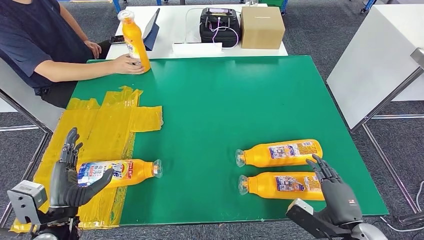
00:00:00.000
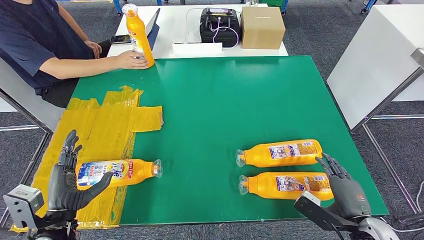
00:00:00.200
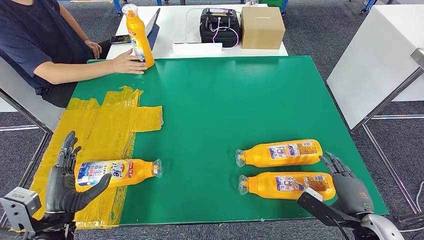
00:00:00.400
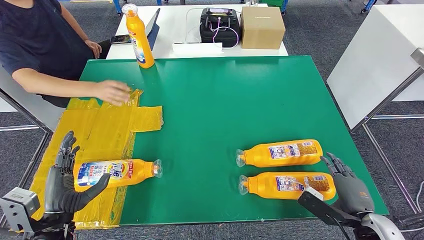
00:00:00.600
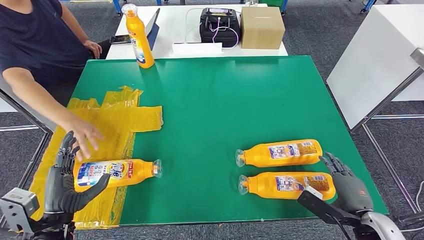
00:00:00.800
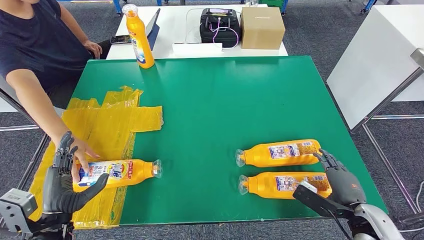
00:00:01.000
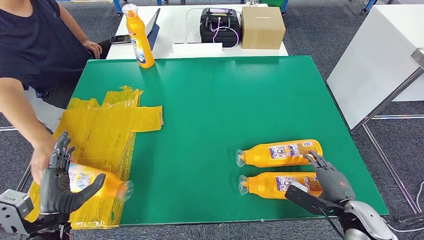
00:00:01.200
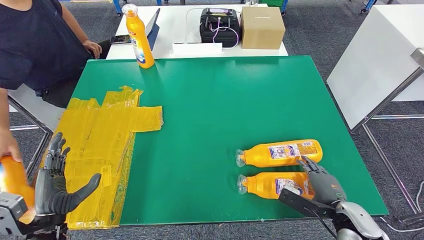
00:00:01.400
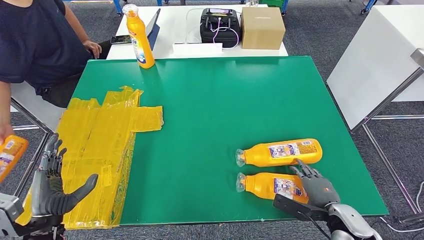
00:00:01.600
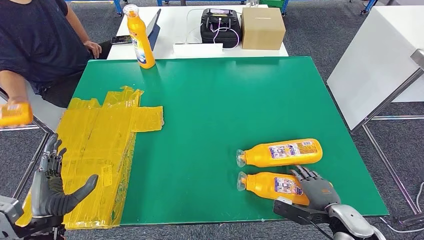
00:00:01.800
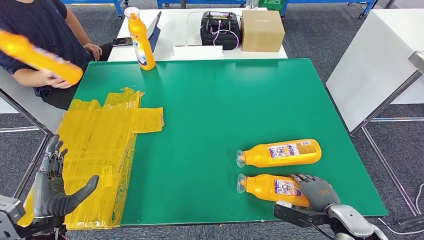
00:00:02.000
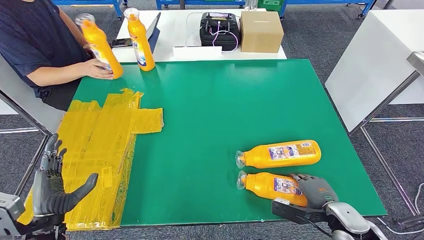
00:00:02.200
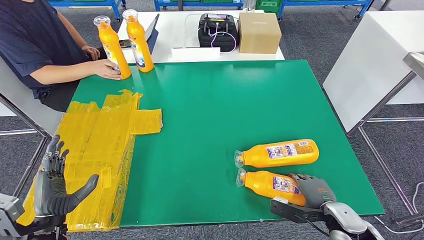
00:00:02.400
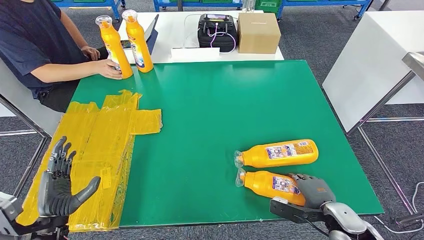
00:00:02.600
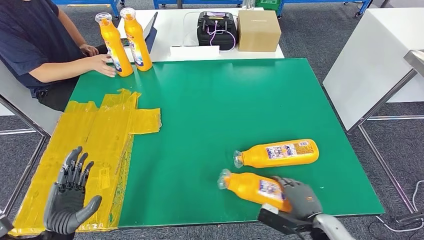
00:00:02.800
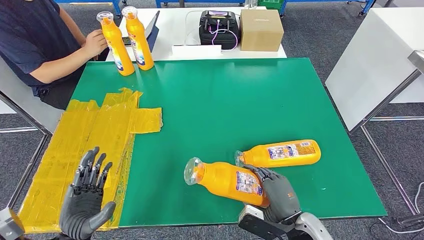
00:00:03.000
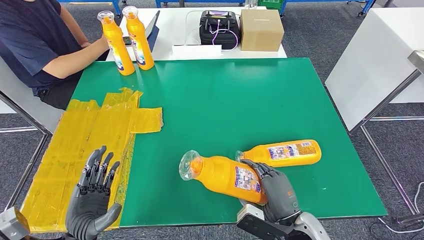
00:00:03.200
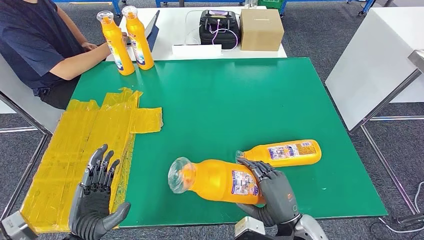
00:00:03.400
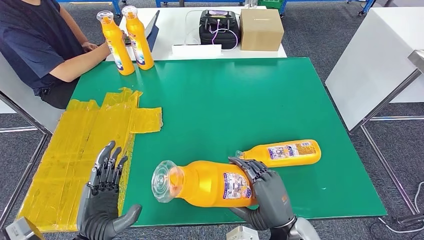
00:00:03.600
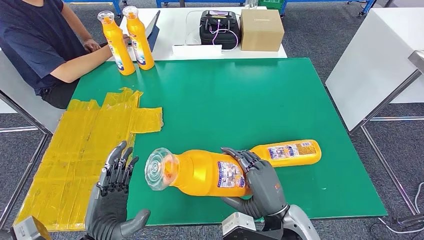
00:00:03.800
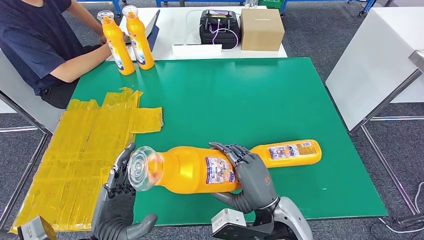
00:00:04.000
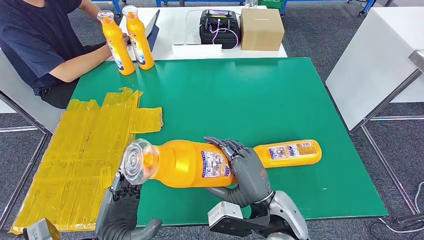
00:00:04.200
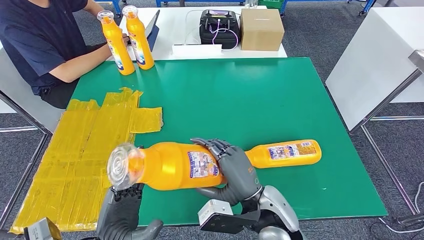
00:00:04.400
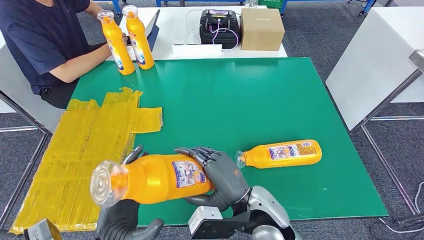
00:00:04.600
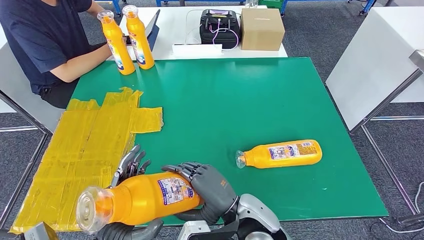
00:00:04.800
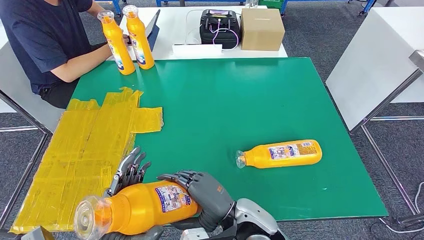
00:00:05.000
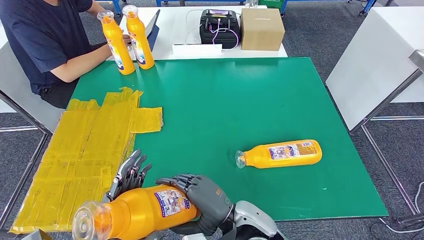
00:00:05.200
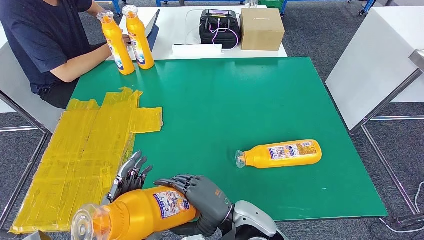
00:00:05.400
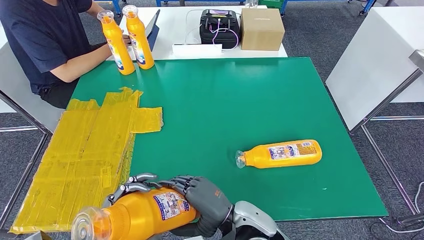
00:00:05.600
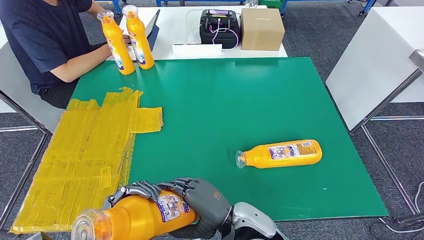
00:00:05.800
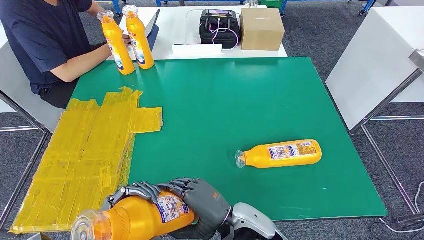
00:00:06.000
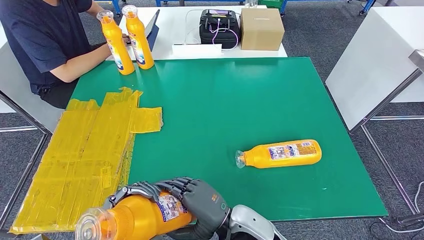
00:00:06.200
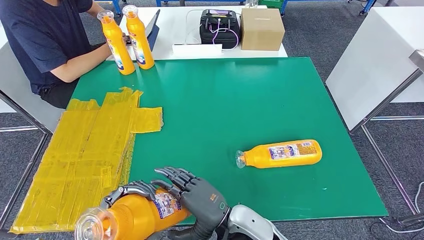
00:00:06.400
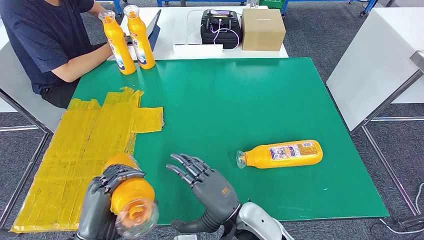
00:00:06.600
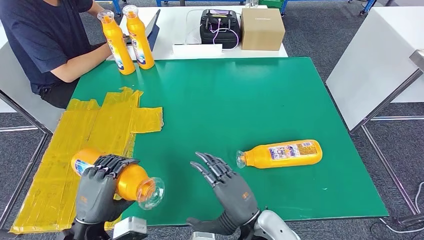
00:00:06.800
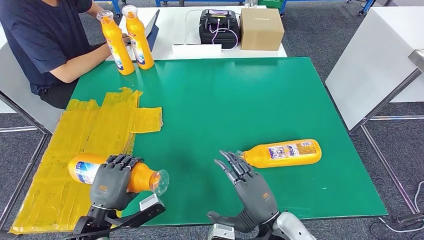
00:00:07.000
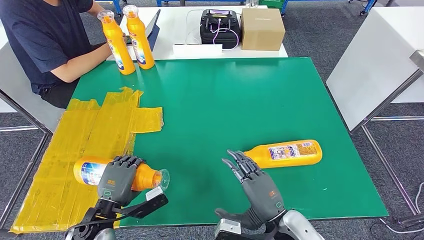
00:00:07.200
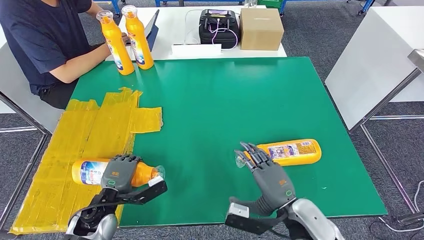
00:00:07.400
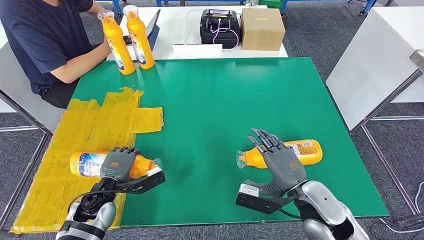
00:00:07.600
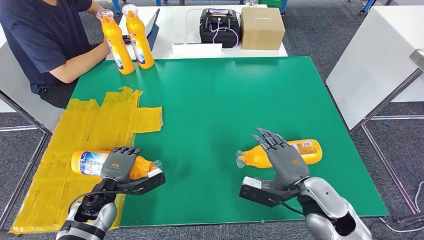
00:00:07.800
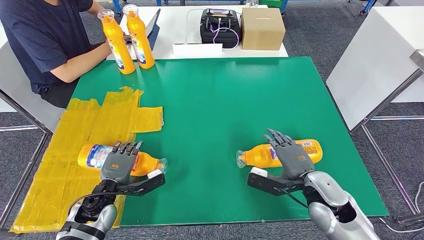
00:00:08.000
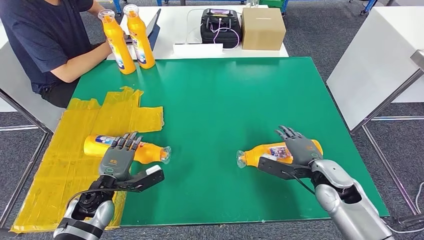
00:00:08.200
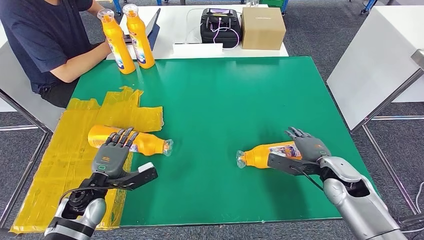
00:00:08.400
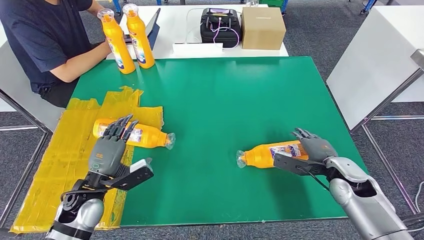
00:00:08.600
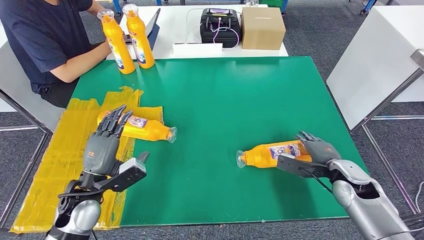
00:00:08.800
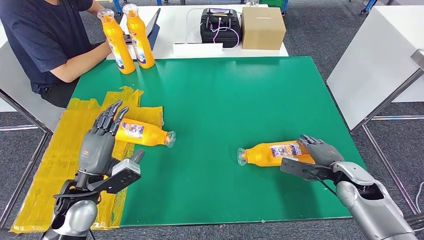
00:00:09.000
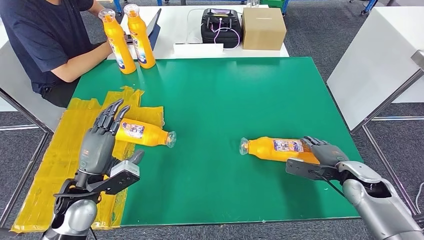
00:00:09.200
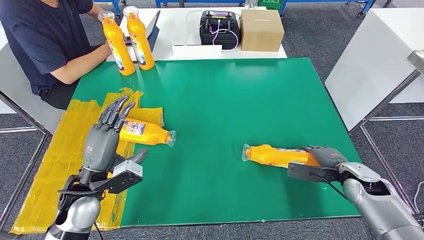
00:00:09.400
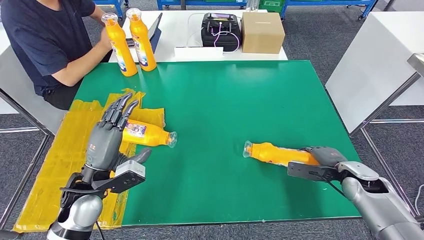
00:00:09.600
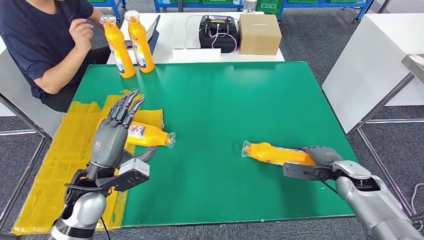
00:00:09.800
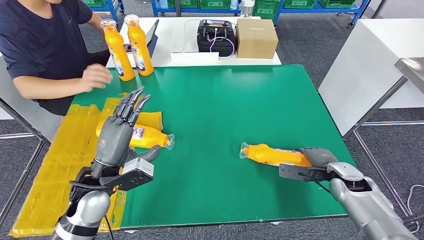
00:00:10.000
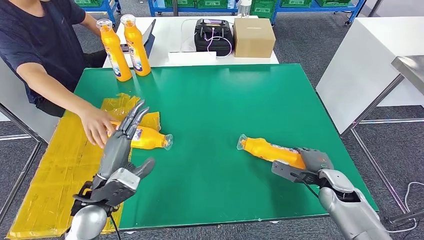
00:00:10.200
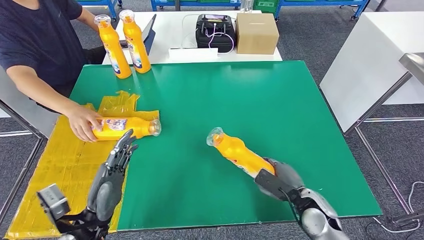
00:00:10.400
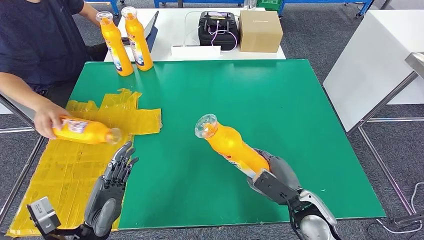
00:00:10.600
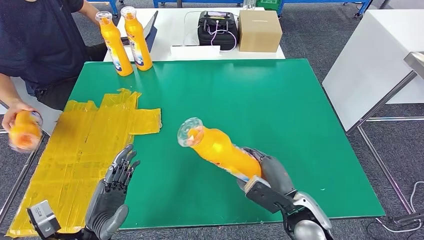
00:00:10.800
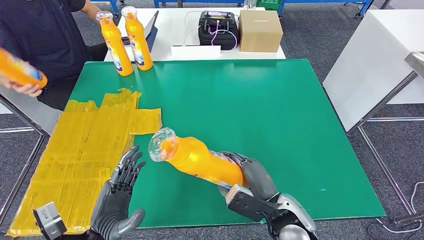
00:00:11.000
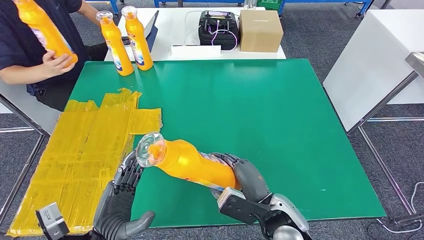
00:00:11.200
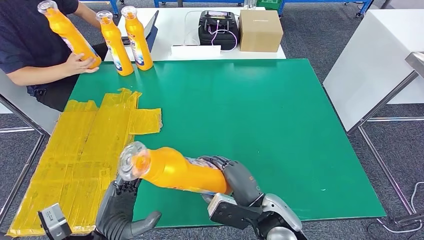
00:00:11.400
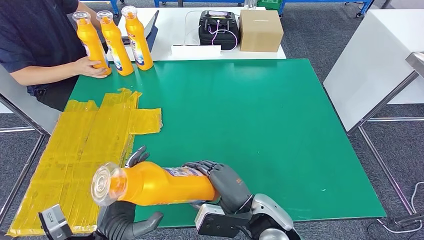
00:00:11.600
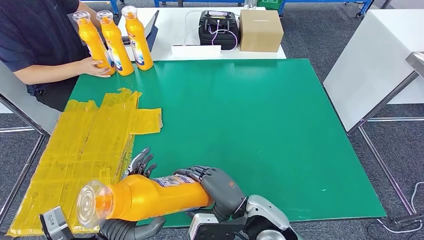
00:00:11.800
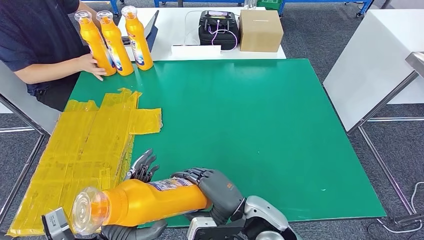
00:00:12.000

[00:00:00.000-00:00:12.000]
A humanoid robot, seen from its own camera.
Step, 00:00:02.600 to 00:00:05.400: Pick up the fast-moving consumer goods bottle from the table.
Step, 00:00:05.600 to 00:00:08.800: Flip the fast-moving consumer goods bottle to the front side.
Step, 00:00:09.600 to 00:00:11.000: Pick up the fast-moving consumer goods bottle from the table.
00:00:00.000 to 00:00:01.600: The right hand moves forward and downward, about 10 cm.
00:00:04.400 to 00:00:06.000: The right hand moves some 5 cm.
00:00:06.000 to 00:00:07.600: The right hand goes some 15 cm to the right, while the left hand shifts some 20 cm forward, downward and to the left.

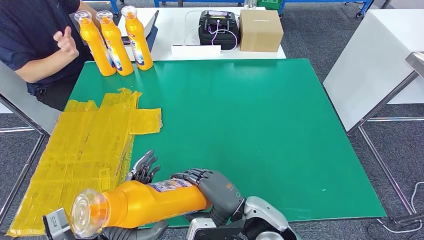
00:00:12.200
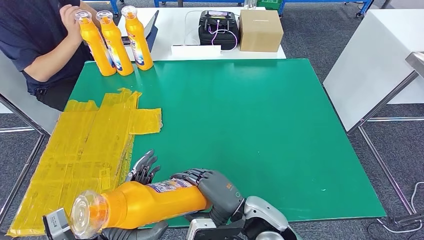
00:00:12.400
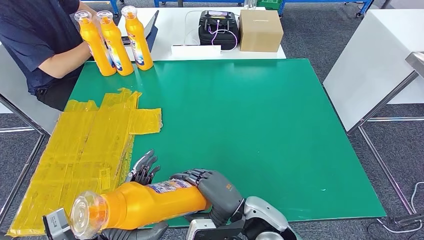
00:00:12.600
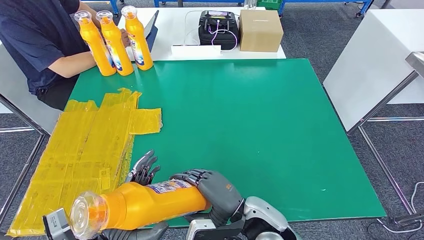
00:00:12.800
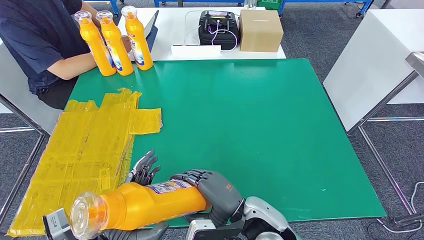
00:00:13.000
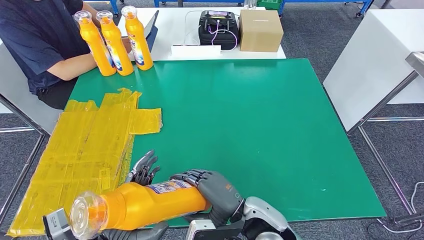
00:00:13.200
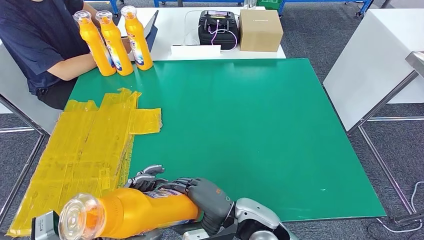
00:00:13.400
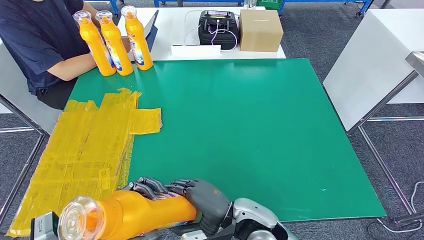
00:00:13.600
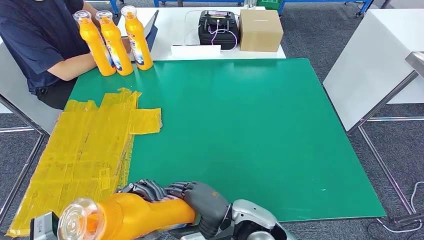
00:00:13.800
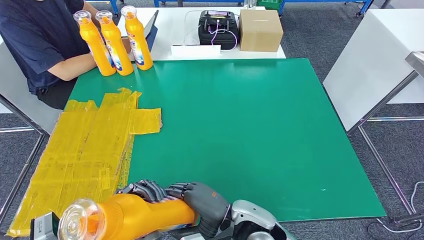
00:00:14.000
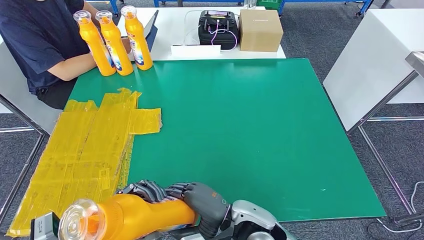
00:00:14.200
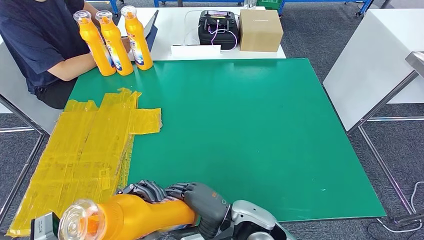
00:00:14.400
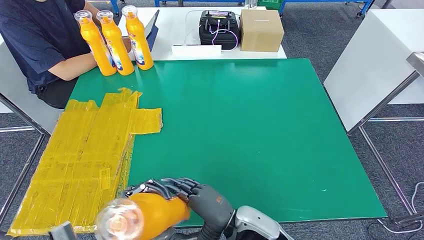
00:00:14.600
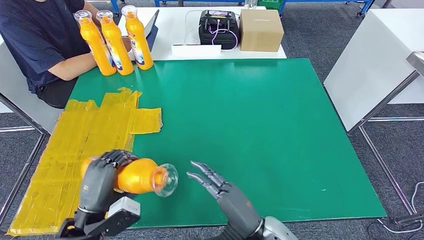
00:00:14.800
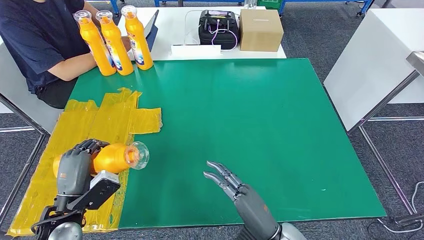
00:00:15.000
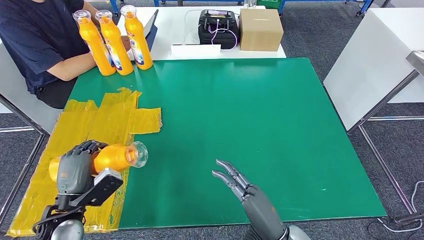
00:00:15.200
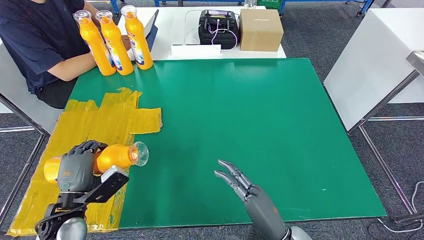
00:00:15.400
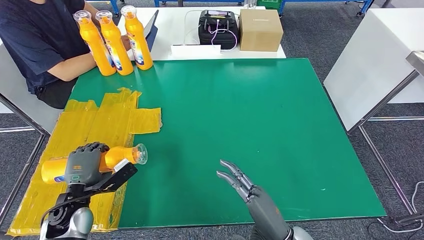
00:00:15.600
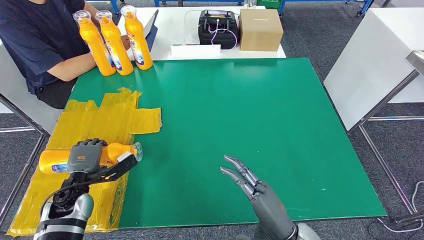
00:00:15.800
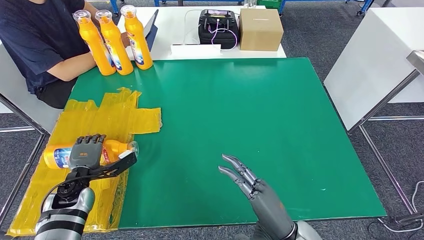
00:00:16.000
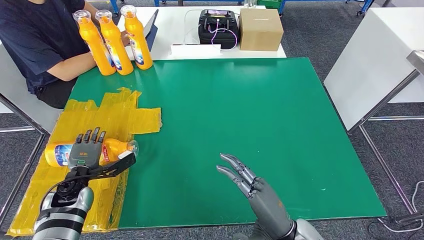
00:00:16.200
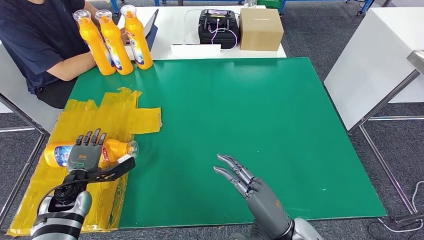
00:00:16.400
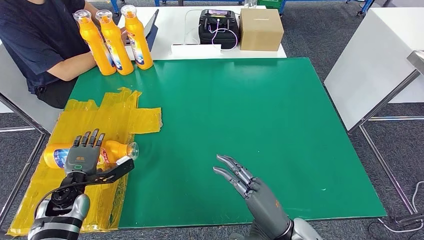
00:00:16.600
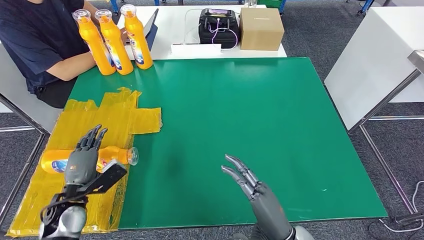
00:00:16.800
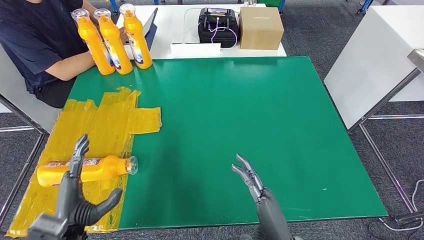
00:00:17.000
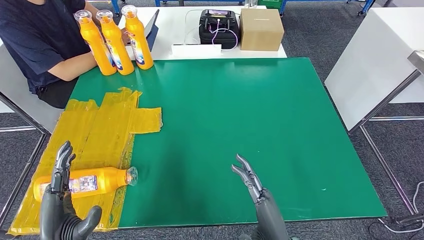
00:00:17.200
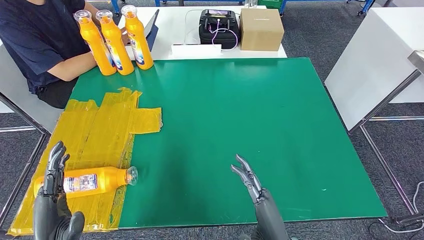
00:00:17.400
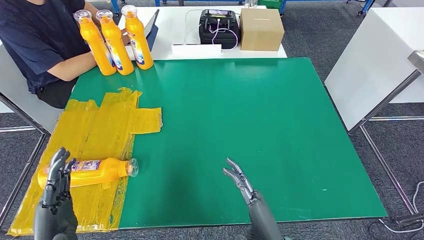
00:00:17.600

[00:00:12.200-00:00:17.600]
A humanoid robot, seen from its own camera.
Step, 00:00:12.200 to 00:00:17.600: Flip the fast-moving consumer goods bottle to the front side.
00:00:12.200 to 00:00:13.600: The hands stay close to where they were, moving slightly.
00:00:13.600 to 00:00:15.000: The left hand travels to the left and forward by some 15 cm. The right hand is displaced to the right and backward by approximately 10 cm.
00:00:15.000 to 00:00:16.200: The left hand heads forward, downward and to the left, covering roughly 15 cm.
00:00:16.200 to 00:00:17.600: The right hand changes place by approximately 5 cm. The left hand travels backward, upward and to the right by about 25 cm.
